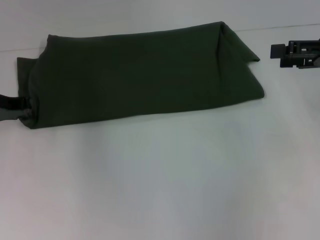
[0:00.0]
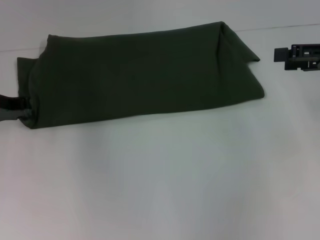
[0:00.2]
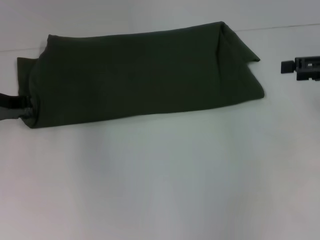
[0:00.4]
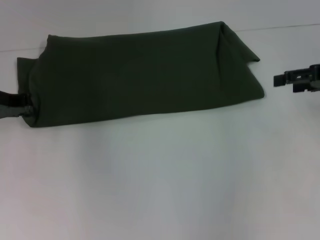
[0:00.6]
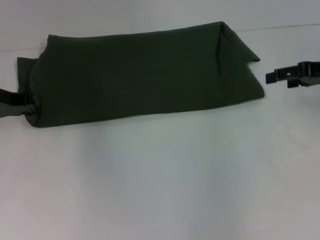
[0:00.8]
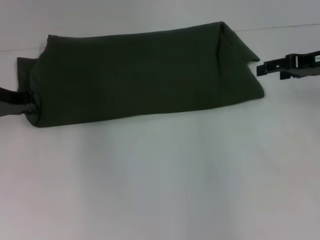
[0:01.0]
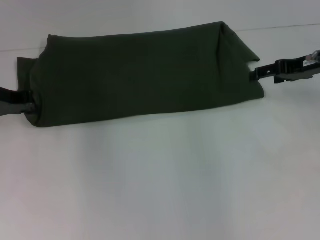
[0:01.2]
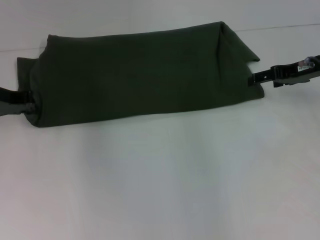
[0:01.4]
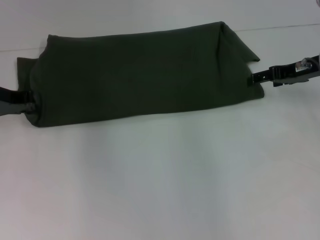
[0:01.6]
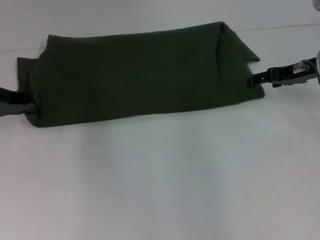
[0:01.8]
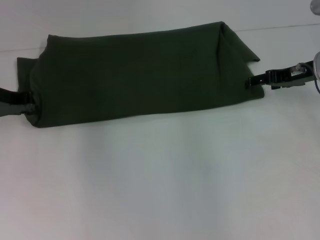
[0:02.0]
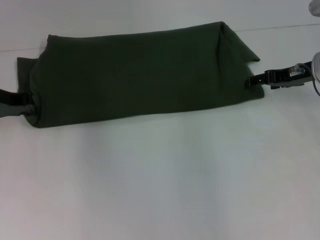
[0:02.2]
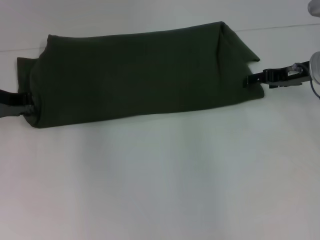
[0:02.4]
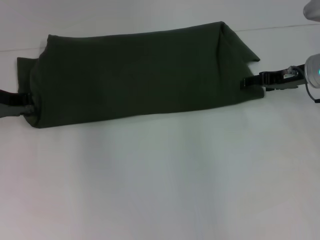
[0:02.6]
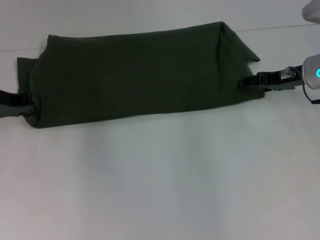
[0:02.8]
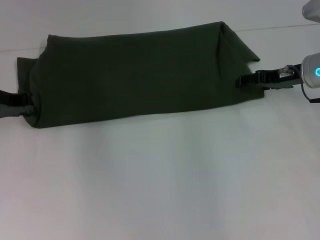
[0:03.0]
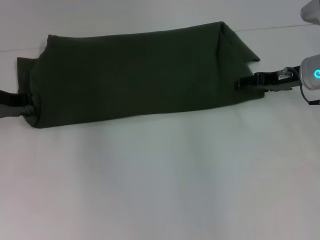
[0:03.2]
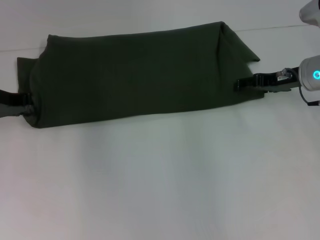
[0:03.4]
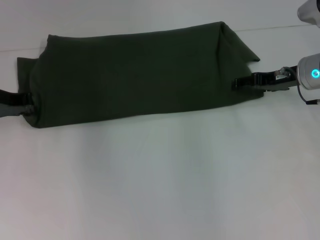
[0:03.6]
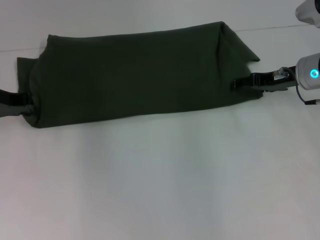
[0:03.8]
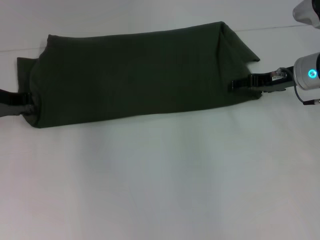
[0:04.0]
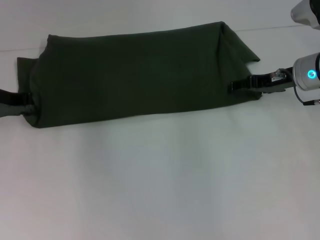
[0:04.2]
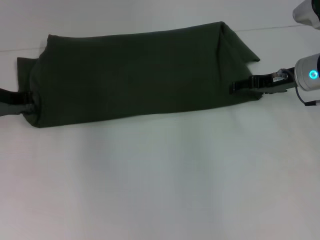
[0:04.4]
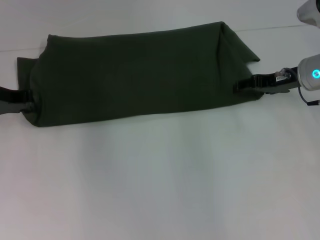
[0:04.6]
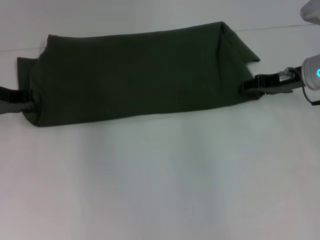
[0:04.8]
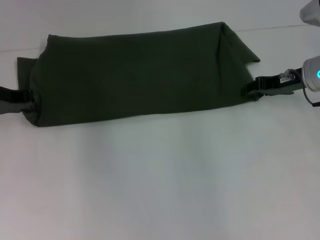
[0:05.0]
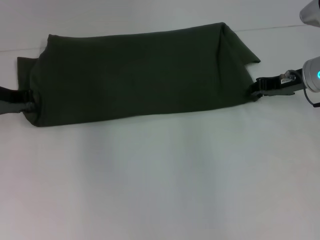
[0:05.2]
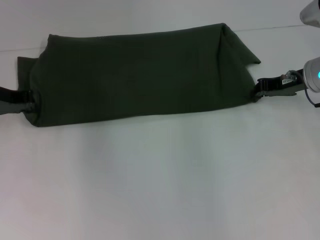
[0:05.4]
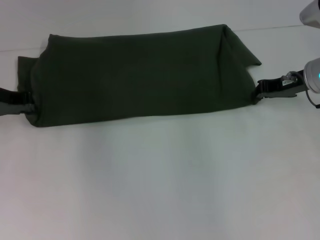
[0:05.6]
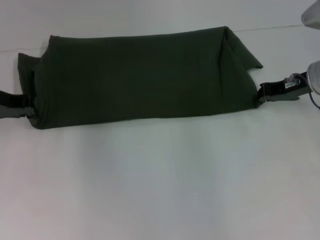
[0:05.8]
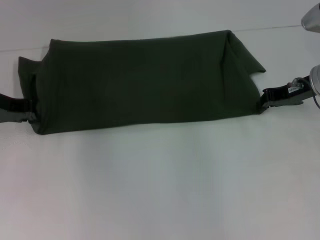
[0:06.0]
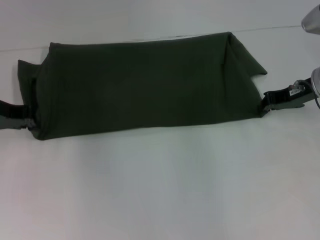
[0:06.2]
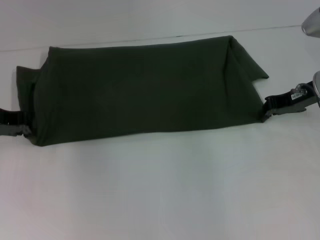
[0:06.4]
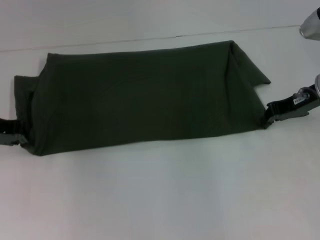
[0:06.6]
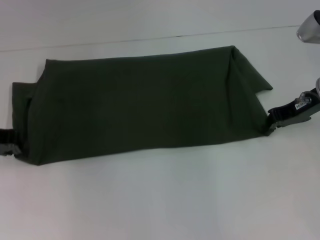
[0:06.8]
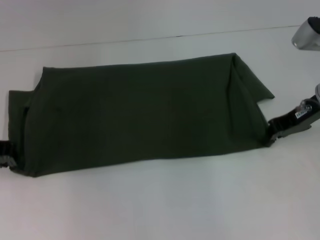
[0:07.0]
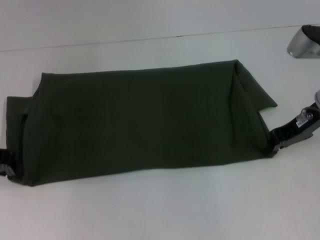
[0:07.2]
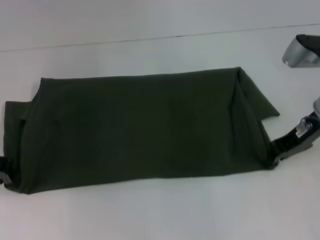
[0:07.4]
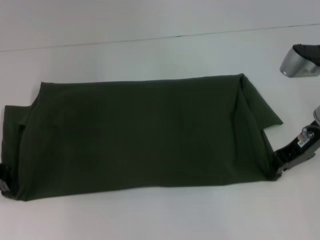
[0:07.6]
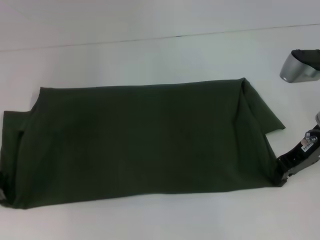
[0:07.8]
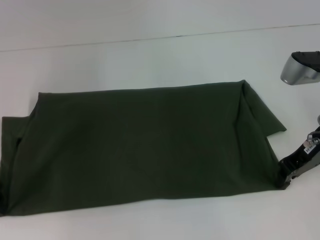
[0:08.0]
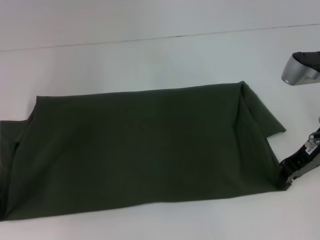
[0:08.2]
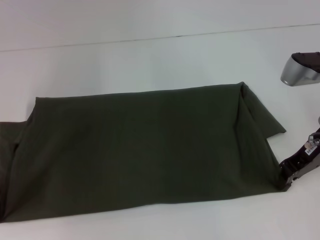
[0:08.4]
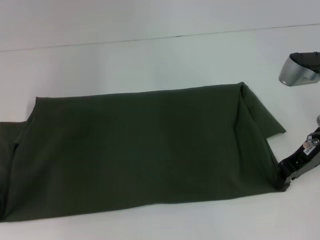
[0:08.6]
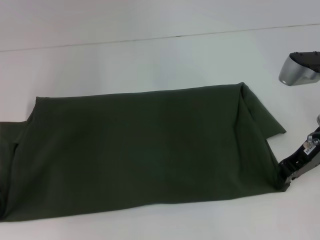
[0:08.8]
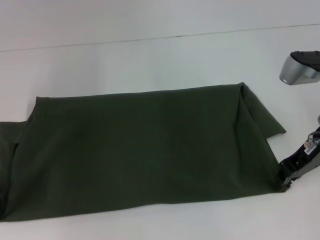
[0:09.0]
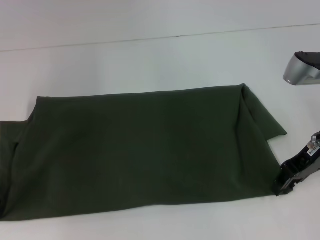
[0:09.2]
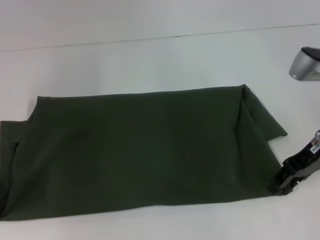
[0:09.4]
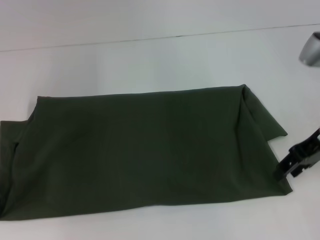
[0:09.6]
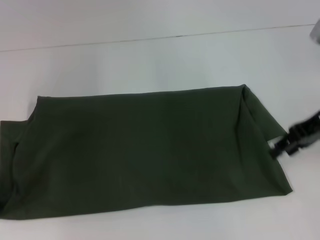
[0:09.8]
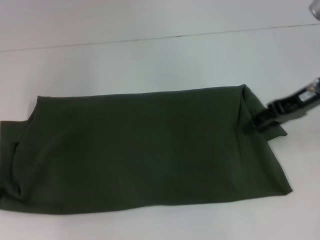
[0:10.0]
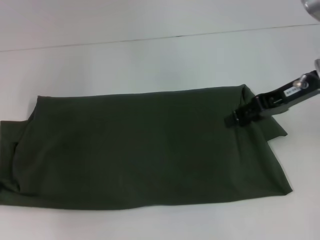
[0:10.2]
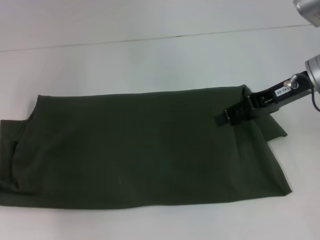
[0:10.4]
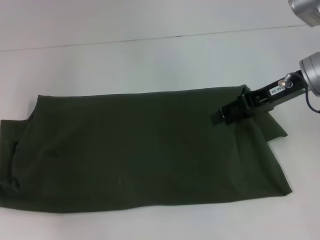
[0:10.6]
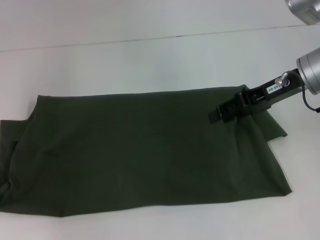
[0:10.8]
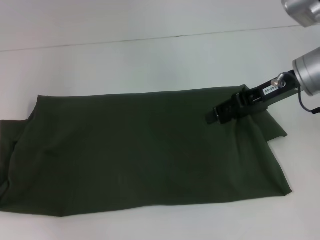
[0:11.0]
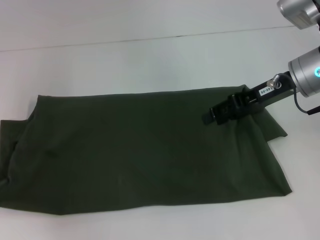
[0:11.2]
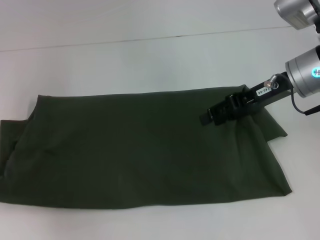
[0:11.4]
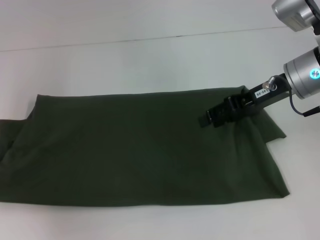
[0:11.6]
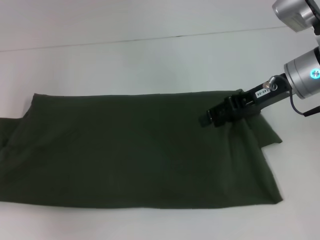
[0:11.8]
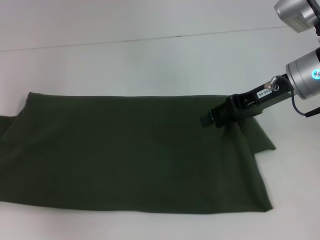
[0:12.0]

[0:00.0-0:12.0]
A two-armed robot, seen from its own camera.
Step, 0:00.0 to 0:09.4: Pull the clothes with your left hand.
Step, 0:00.0 to 0:09.4: Pull the clothes with your right hand.
0:00.0 to 0:01.6: The right gripper travels forward and downward by approximately 10 cm.
0:01.6 to 0:03.0: The grippers stay close to where they were, moving slightly.
0:03.0 to 0:04.4: Both grippers stay put.
0:04.4 to 0:06.0: The right gripper closes its fingers.
0:06.0 to 0:07.6: The left gripper goes approximately 5 cm backward; the right gripper shifts by approximately 5 cm.
0:07.6 to 0:09.0: The grippers make only small movements.
0:09.0 to 0:10.4: The right gripper changes place by roughly 5 cm, and opens its fingers.
0:10.4 to 0:12.0: The left gripper is displaced to the left by about 5 cm.

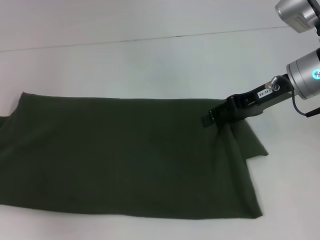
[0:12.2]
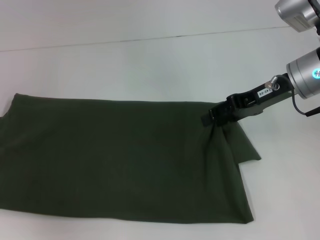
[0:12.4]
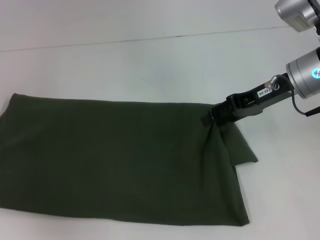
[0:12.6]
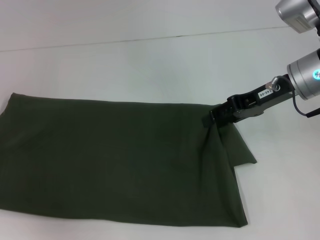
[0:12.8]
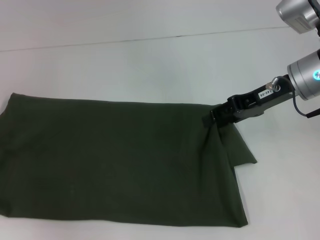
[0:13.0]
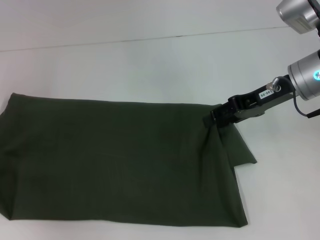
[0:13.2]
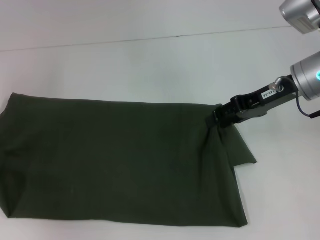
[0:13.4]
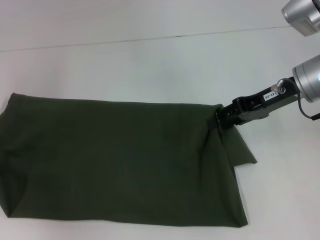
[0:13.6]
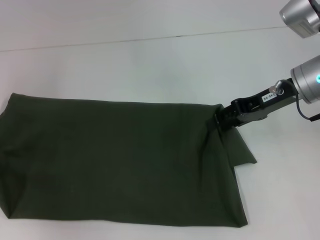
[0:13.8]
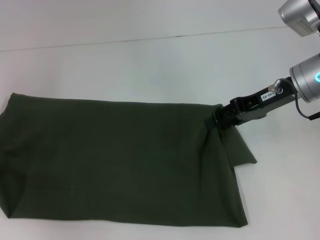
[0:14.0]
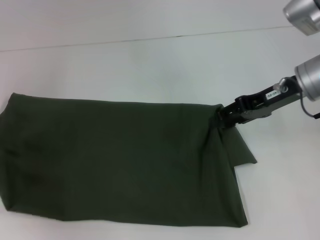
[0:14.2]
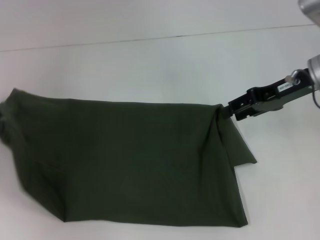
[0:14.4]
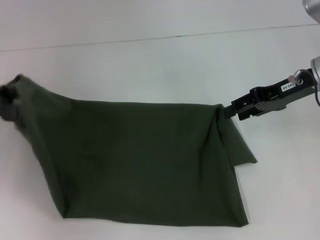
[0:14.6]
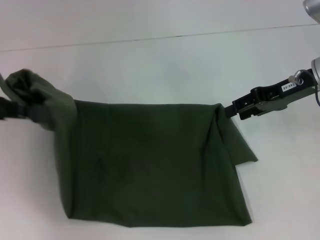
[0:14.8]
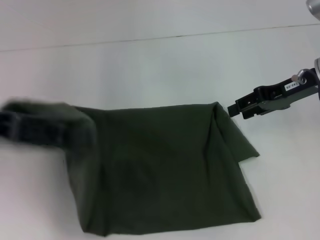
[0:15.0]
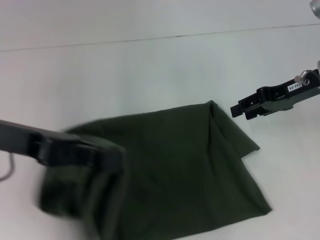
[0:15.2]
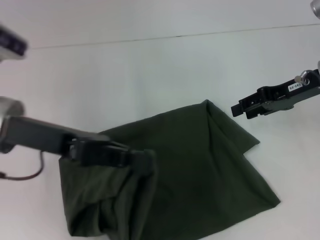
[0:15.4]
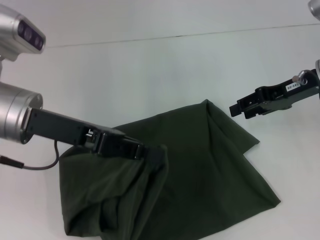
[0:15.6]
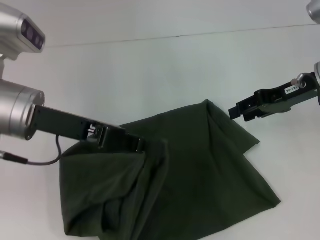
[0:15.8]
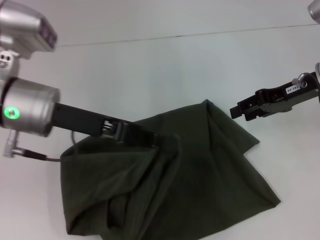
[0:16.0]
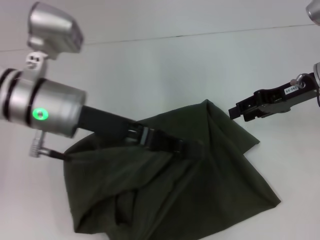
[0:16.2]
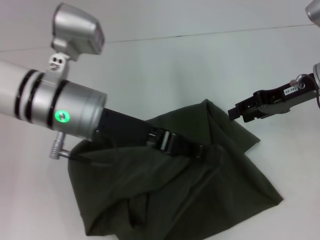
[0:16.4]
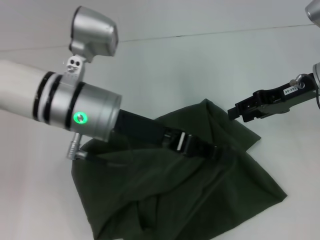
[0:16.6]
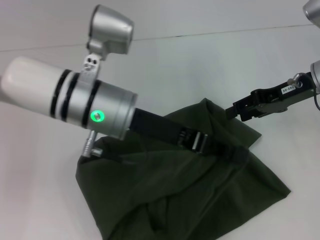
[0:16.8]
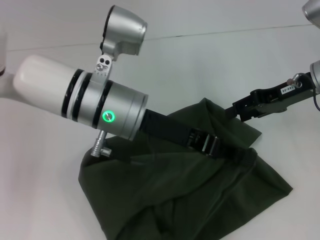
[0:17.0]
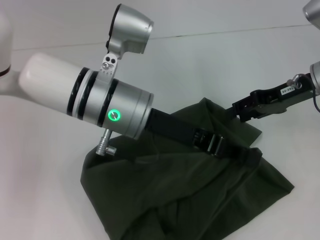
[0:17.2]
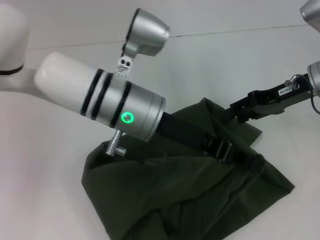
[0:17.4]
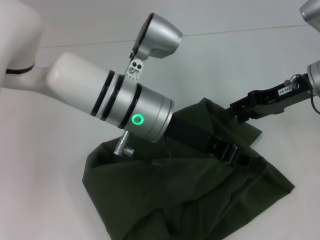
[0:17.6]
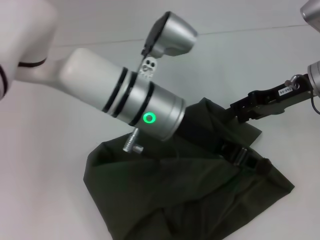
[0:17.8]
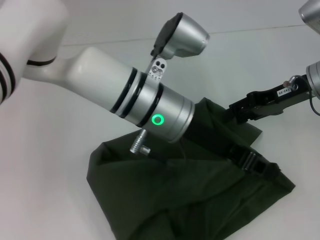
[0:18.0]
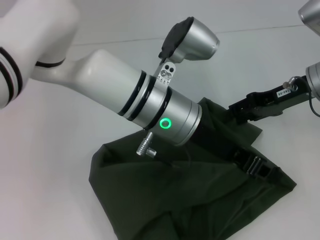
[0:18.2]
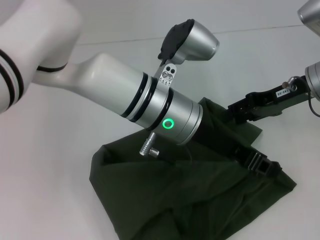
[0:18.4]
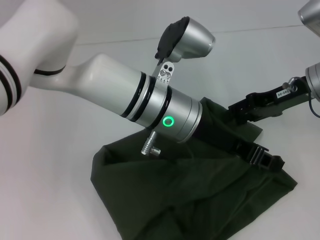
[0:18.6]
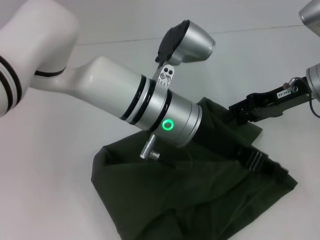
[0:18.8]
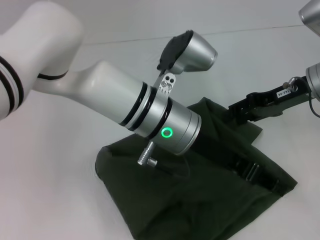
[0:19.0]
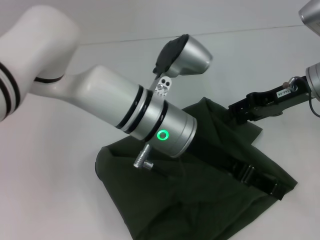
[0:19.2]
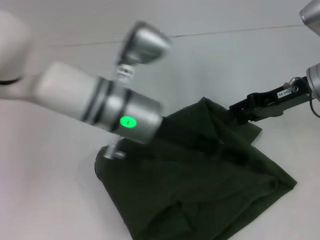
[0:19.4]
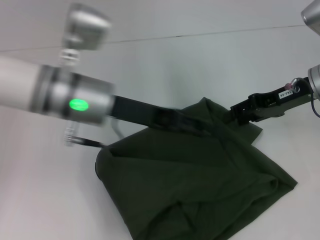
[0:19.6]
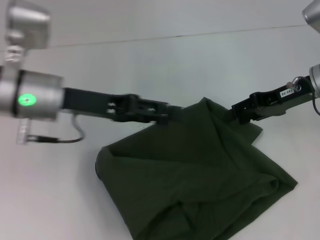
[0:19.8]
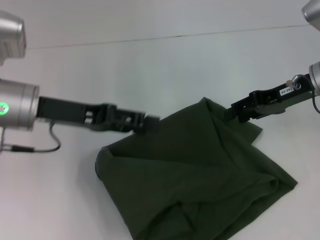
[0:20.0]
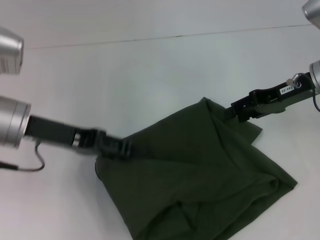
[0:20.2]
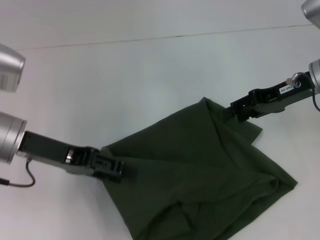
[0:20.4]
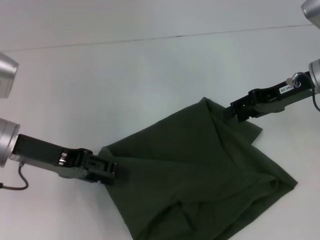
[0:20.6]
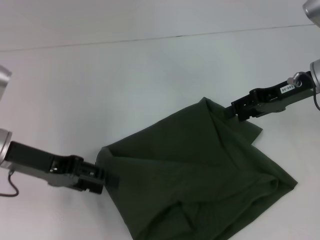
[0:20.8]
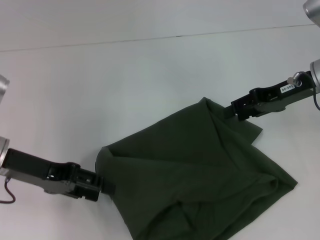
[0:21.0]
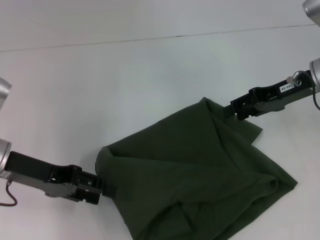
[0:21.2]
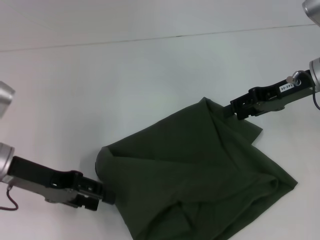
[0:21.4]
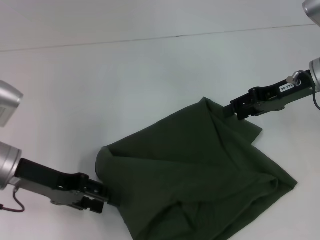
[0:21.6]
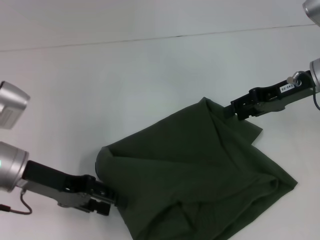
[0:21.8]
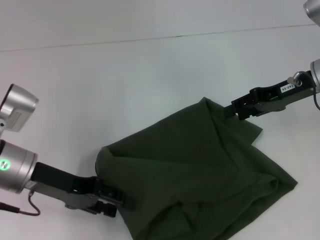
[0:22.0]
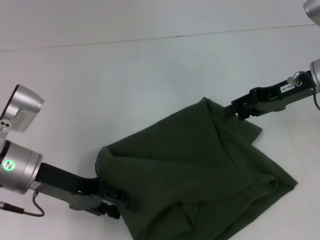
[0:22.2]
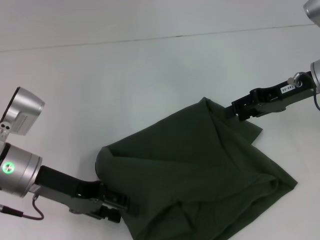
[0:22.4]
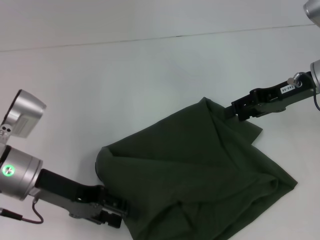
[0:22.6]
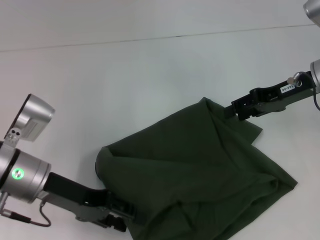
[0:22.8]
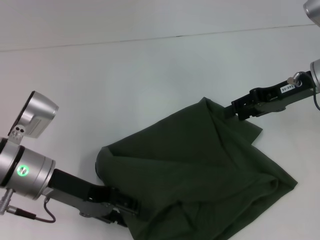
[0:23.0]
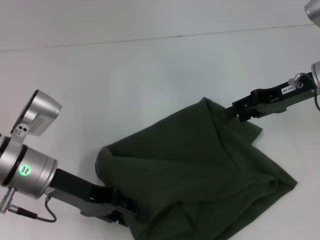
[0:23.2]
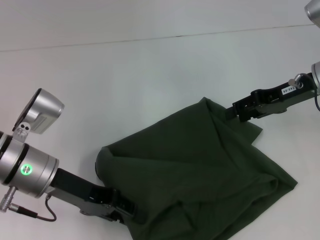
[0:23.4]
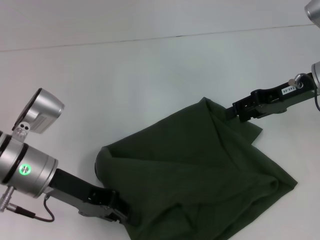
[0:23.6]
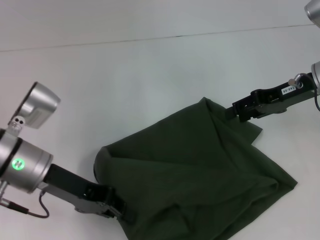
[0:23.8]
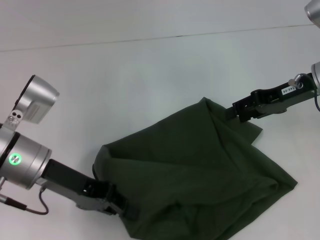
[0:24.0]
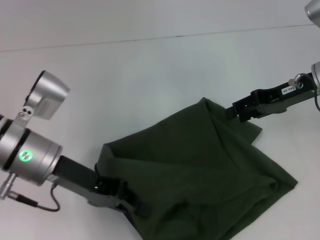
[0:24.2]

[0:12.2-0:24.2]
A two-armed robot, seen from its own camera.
0:12.2 to 0:13.8: The grippers stay close to where they were, moving slightly.
0:13.8 to 0:15.2: The left gripper travels to the right by roughly 15 cm.
0:15.2 to 0:16.6: The left gripper is displaced to the right by about 15 cm.
0:16.6 to 0:18.2: The left gripper travels to the right by approximately 10 cm.
0:18.2 to 0:19.8: The left gripper heads to the left, covering approximately 15 cm, and opens its fingers.
0:19.8 to 0:21.2: The left gripper is displaced to the left by about 5 cm.
0:21.2 to 0:22.6: The grippers stay close to where they were, moving slightly.
0:22.6 to 0:24.2: The left gripper closes.
